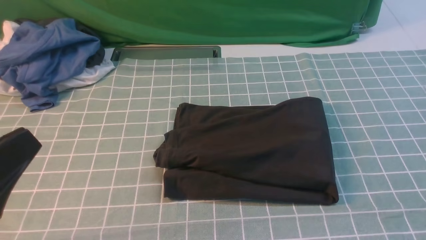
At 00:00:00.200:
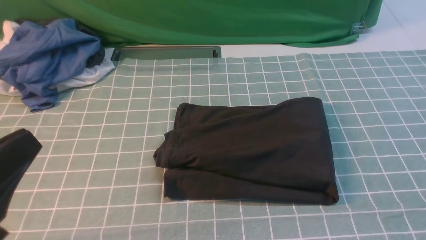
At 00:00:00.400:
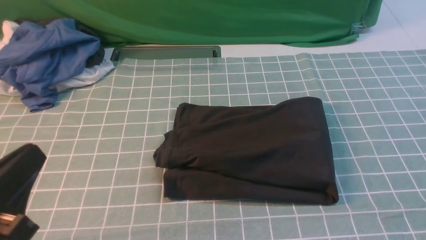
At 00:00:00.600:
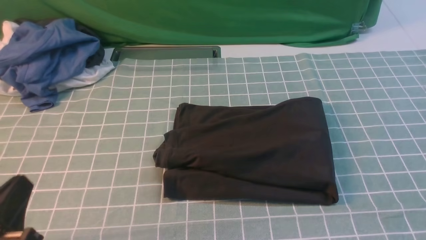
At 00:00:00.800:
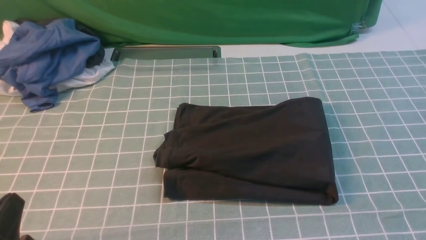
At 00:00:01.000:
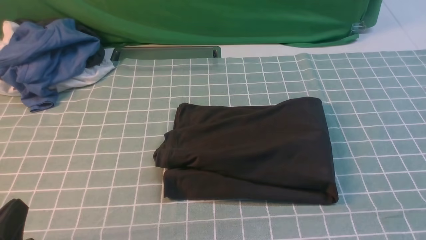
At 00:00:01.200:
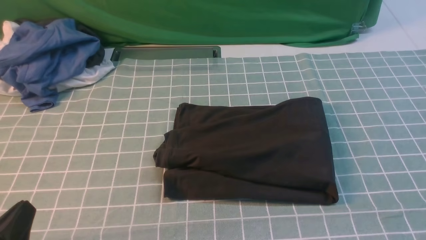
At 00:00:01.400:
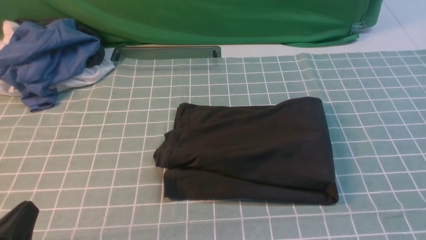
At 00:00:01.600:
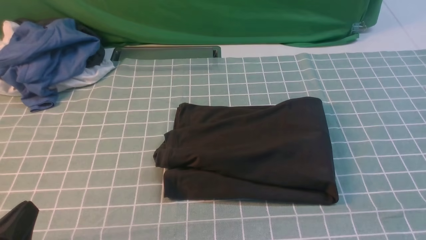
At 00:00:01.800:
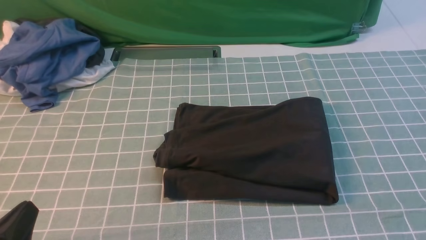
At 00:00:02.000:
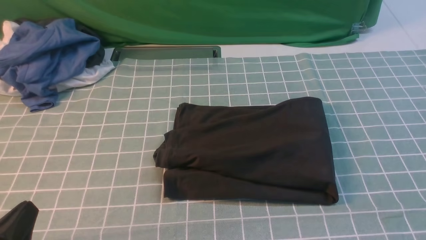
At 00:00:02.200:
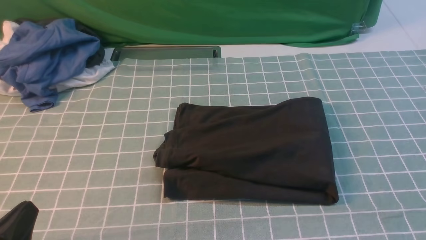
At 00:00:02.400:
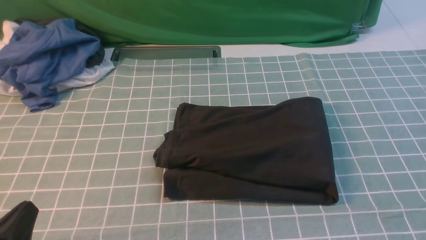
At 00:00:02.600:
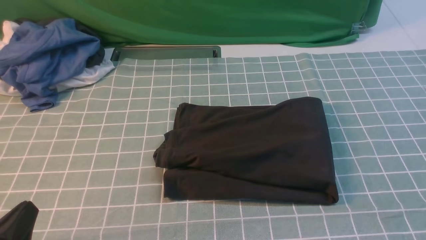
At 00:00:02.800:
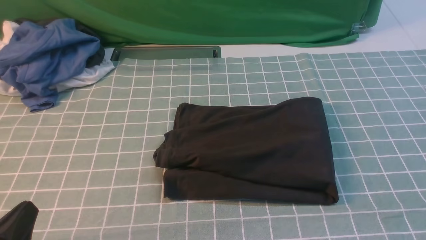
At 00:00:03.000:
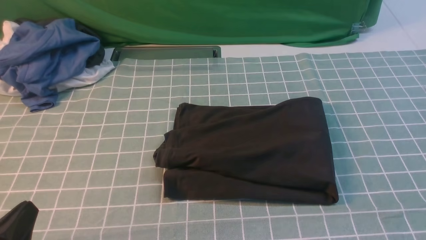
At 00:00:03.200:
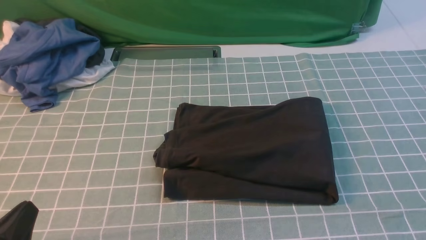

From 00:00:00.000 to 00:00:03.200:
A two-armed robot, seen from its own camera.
From 00:00:00.000 to 00:00:01.600: The left gripper travels downward by some 15 cm.
From 00:00:01.600 to 00:00:03.200: The two grippers keep their place.
